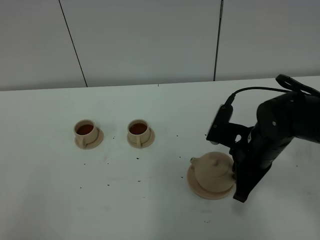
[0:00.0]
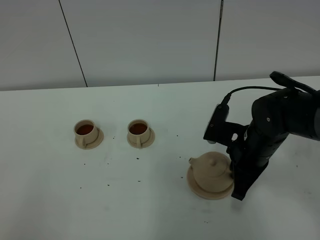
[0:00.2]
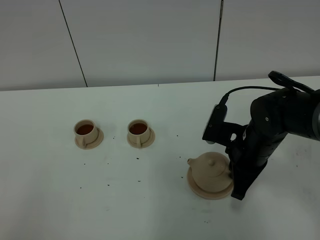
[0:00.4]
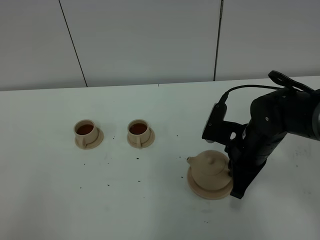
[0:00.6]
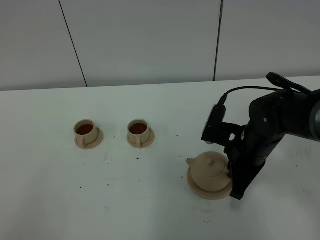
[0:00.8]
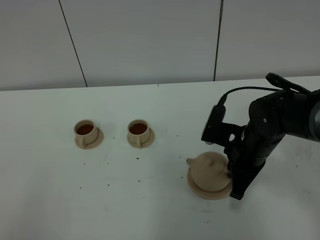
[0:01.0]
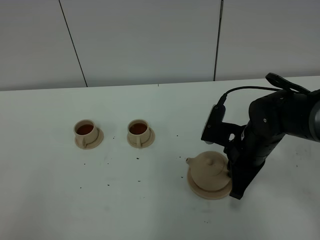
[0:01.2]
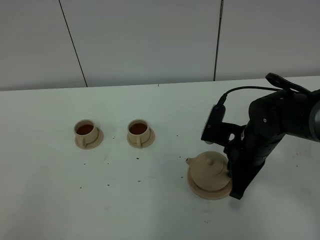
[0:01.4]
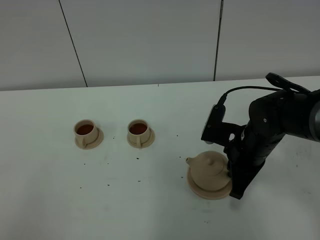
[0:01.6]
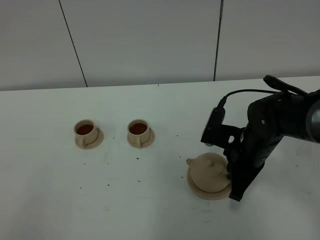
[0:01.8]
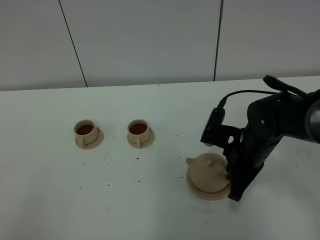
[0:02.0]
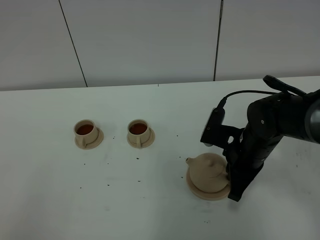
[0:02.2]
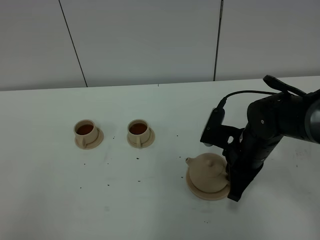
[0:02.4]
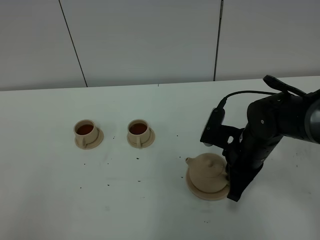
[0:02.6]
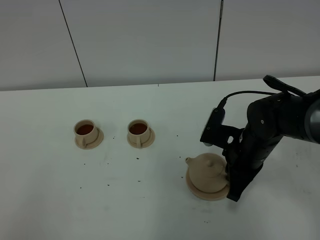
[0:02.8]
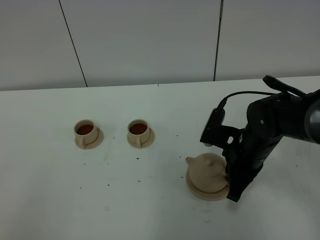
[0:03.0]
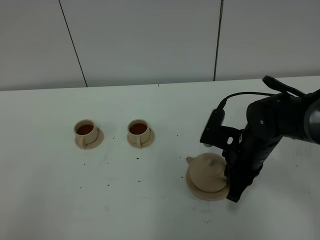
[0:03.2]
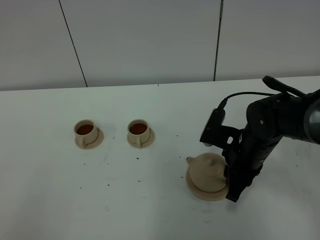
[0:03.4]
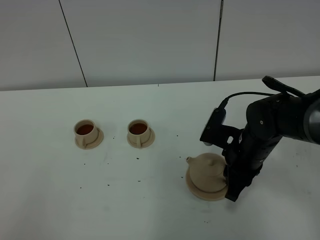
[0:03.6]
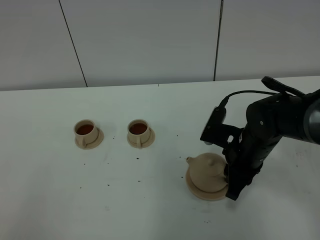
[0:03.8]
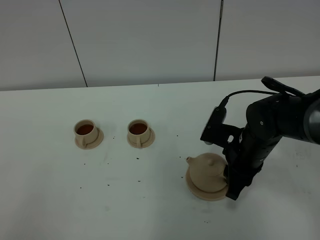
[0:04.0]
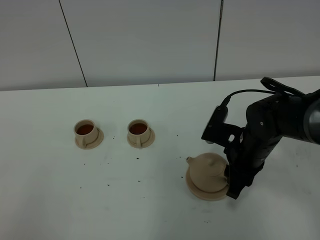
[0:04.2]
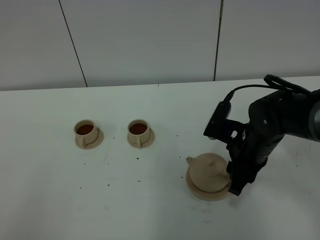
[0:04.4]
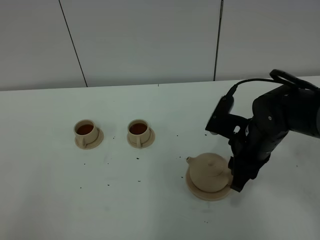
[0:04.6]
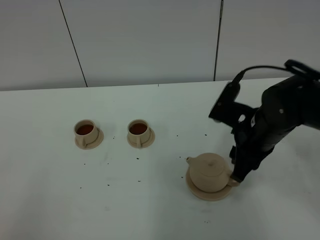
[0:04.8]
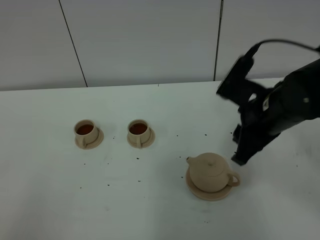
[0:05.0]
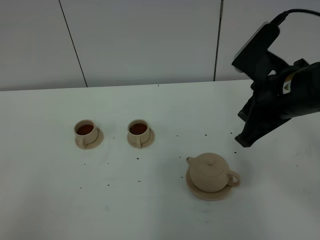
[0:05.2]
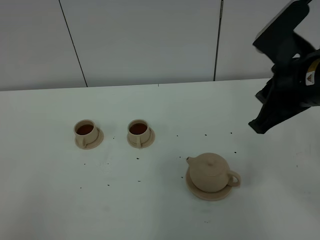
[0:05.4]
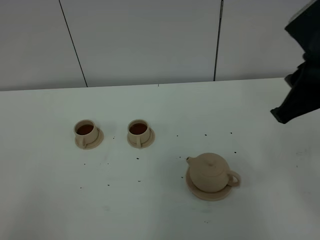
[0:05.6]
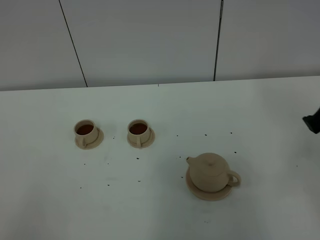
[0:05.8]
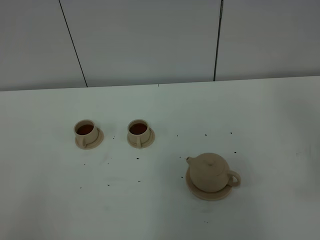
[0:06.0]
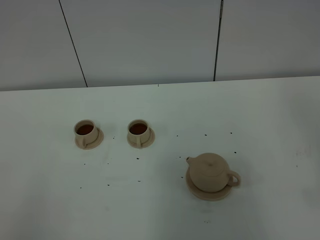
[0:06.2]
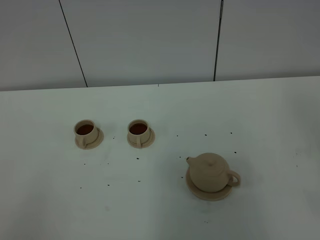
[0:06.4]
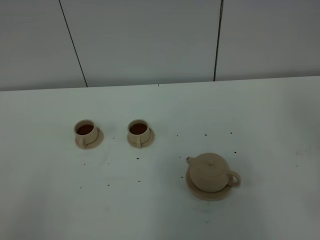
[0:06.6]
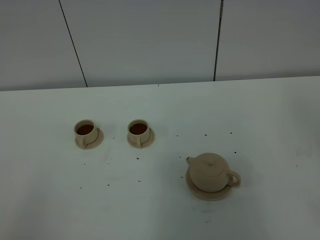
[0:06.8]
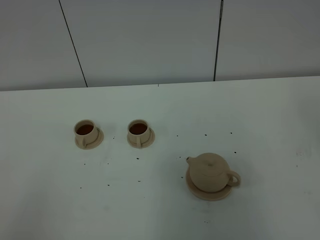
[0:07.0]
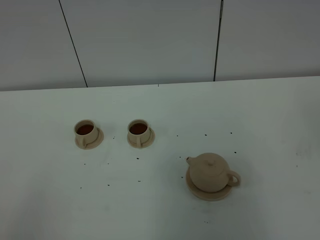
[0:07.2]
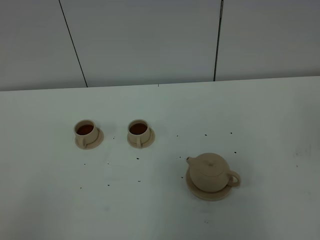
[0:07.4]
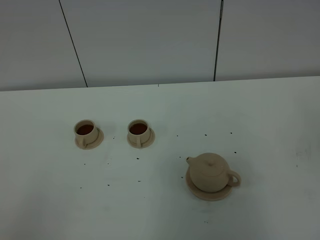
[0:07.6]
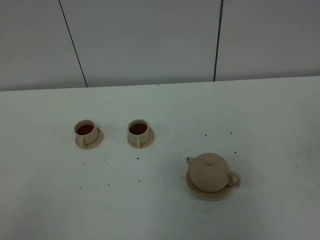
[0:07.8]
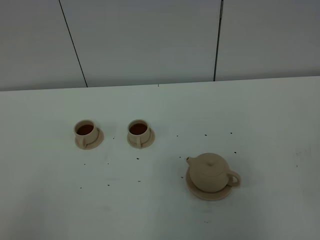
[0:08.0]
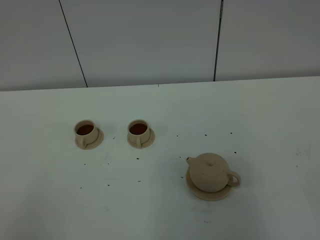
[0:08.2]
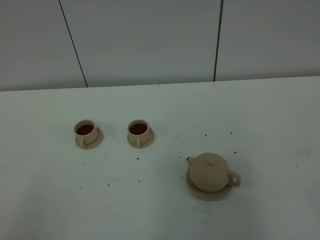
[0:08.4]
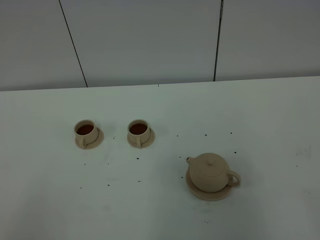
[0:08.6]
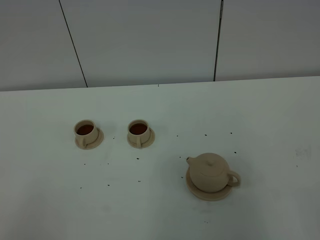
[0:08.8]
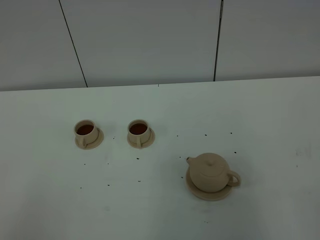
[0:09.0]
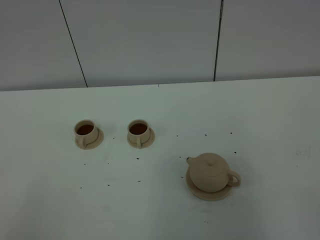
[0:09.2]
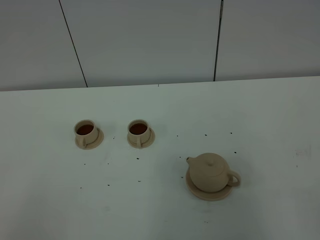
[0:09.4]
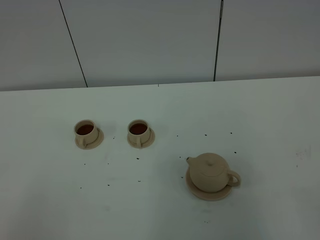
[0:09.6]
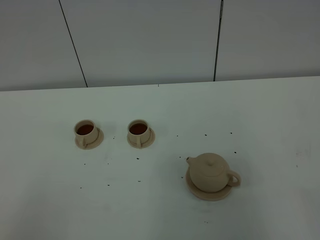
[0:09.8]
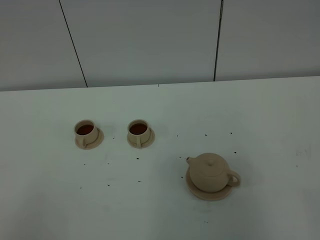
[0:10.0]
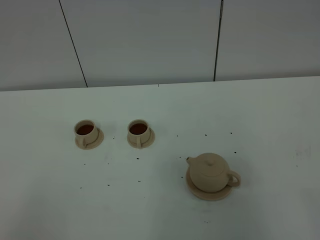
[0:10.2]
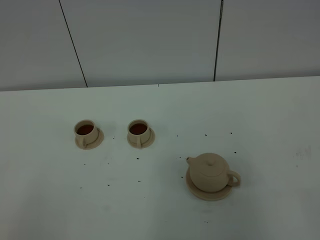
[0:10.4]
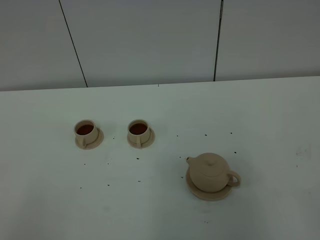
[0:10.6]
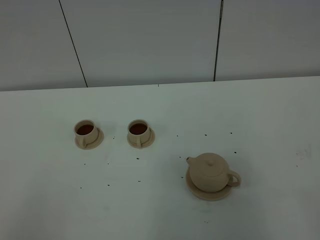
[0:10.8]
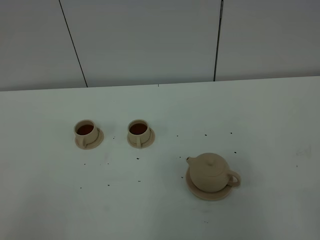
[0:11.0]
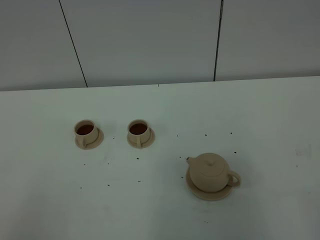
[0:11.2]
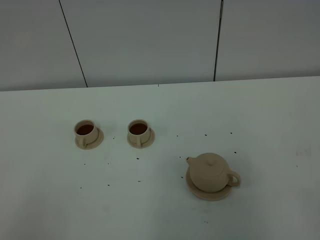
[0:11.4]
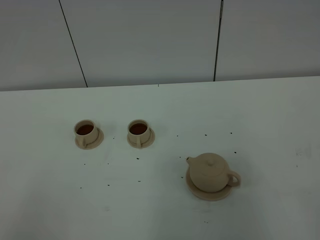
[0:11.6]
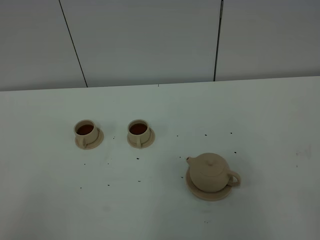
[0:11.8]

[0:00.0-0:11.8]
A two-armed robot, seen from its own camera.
Task of the whole recording: grasp the brown teapot and pour the tea into the two brown teacups one by one, put the brown teapot back in its original place.
0:00.0 to 0:01.4: The grippers make only small movements.
0:01.4 to 0:03.0: Neither gripper changes place.
0:03.0 to 0:04.4: The right gripper opens its fingers.
0:04.4 to 0:06.0: The right gripper shifts about 30 cm upward, backward and to the right, and closes.
0:10.4 to 0:11.8: The two grippers keep their place.

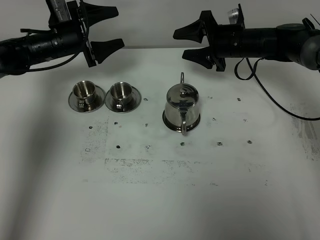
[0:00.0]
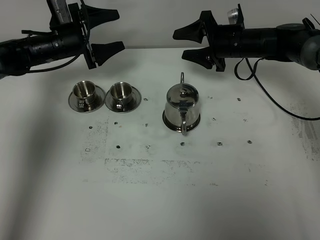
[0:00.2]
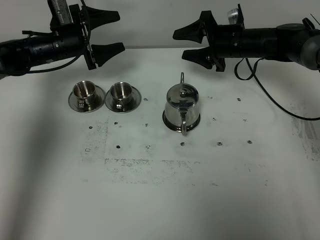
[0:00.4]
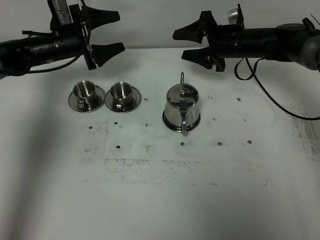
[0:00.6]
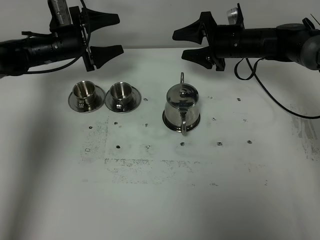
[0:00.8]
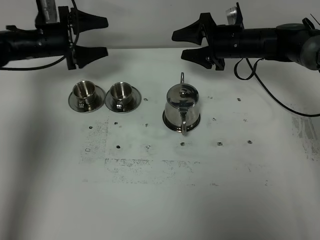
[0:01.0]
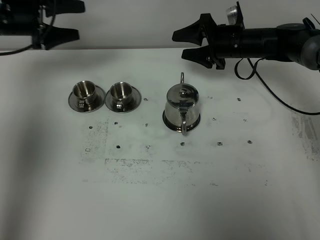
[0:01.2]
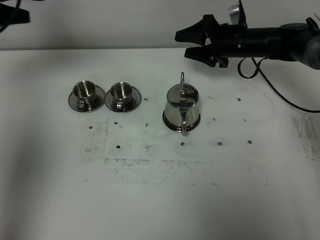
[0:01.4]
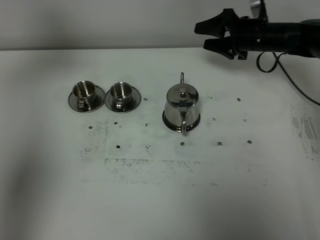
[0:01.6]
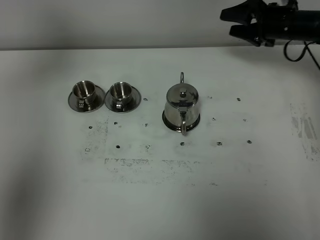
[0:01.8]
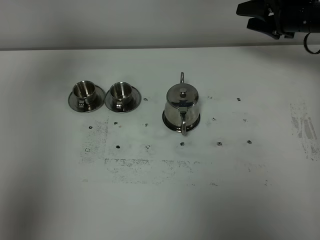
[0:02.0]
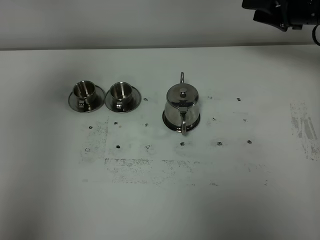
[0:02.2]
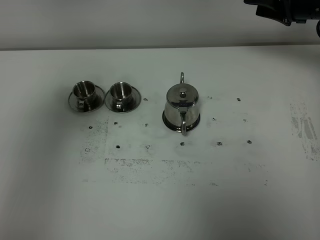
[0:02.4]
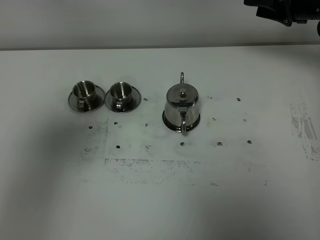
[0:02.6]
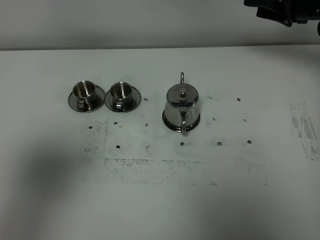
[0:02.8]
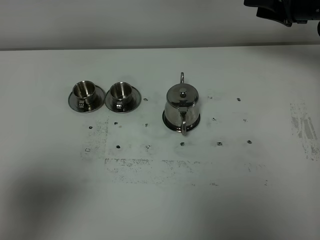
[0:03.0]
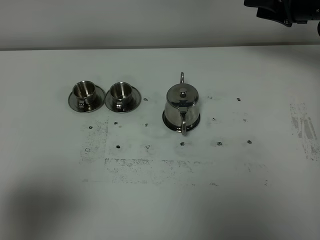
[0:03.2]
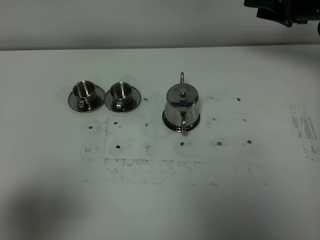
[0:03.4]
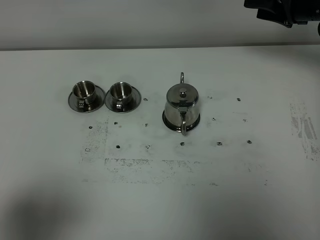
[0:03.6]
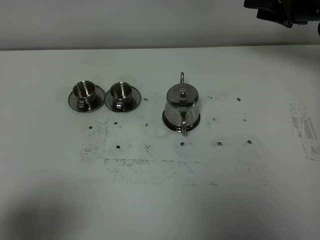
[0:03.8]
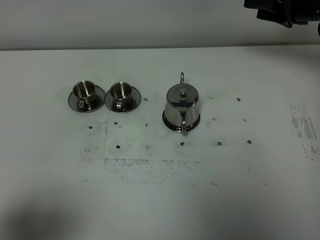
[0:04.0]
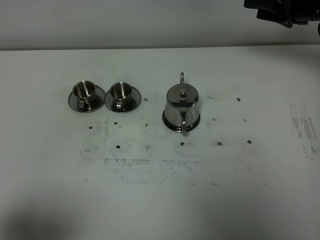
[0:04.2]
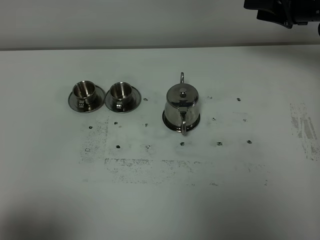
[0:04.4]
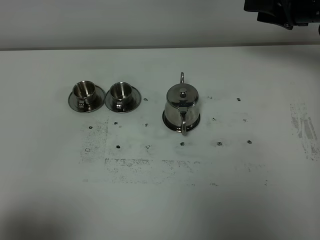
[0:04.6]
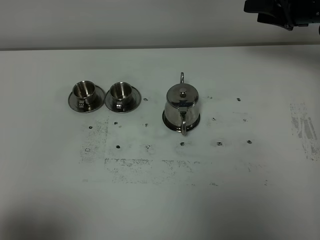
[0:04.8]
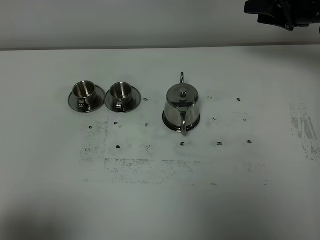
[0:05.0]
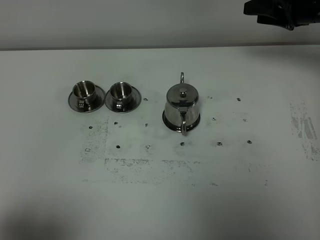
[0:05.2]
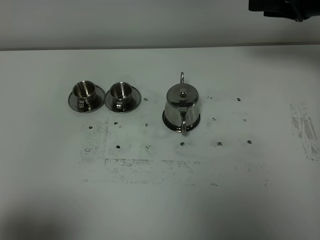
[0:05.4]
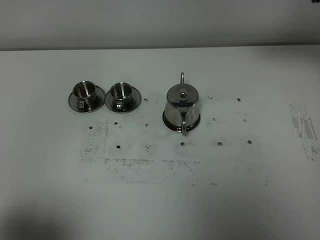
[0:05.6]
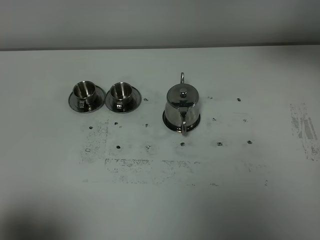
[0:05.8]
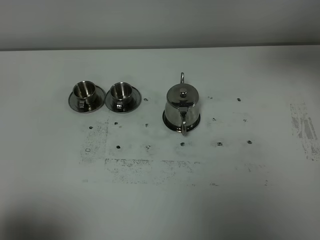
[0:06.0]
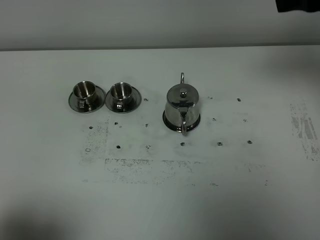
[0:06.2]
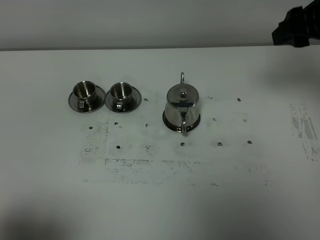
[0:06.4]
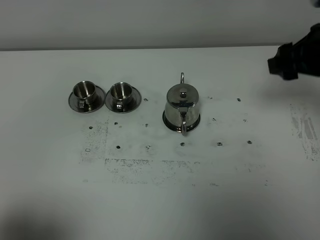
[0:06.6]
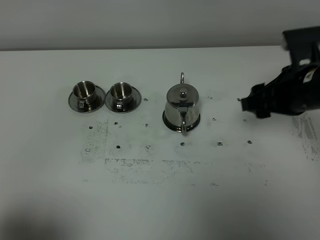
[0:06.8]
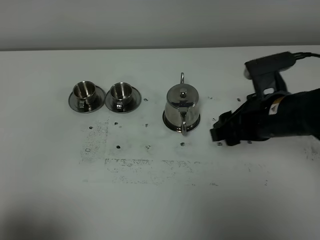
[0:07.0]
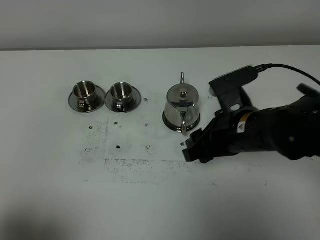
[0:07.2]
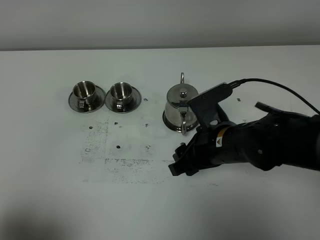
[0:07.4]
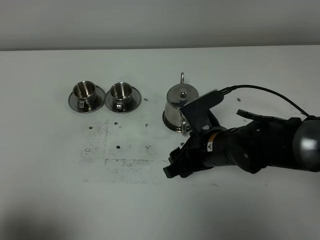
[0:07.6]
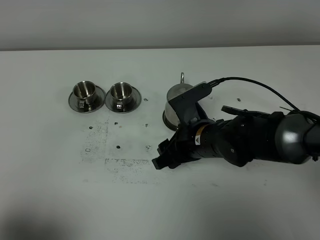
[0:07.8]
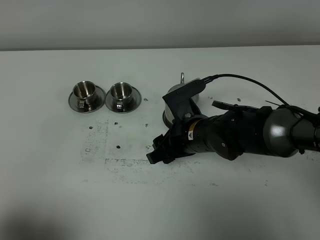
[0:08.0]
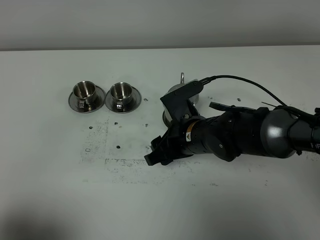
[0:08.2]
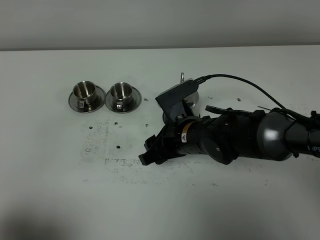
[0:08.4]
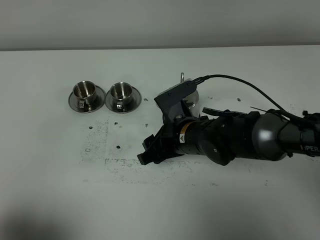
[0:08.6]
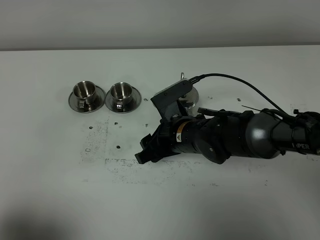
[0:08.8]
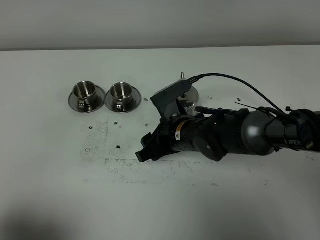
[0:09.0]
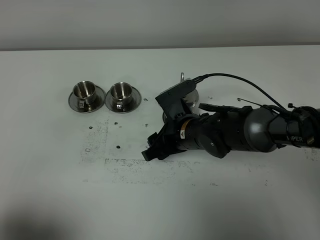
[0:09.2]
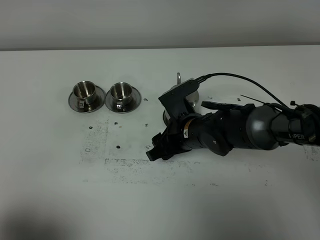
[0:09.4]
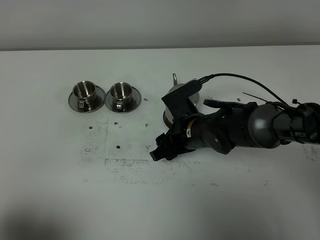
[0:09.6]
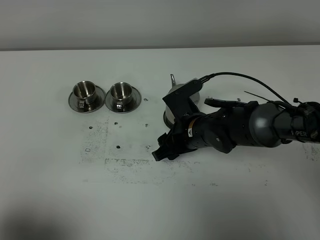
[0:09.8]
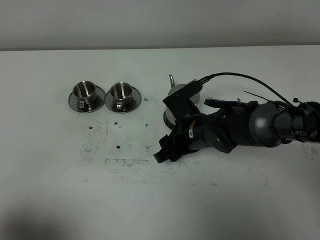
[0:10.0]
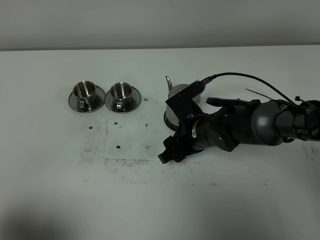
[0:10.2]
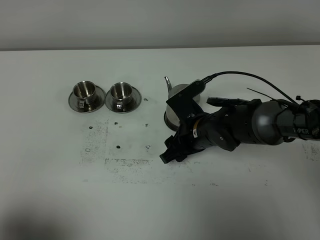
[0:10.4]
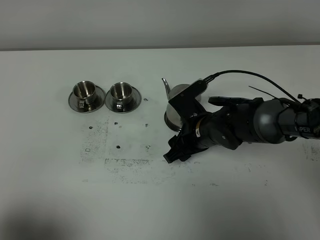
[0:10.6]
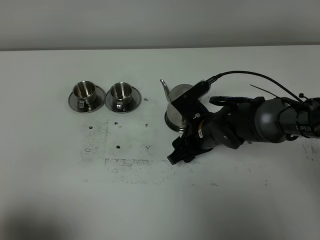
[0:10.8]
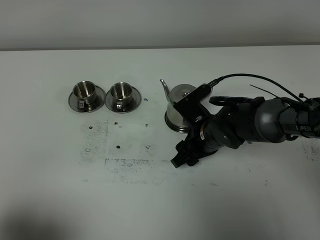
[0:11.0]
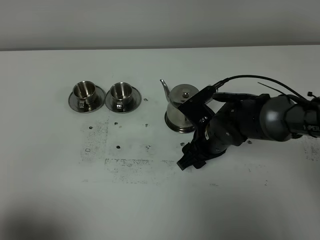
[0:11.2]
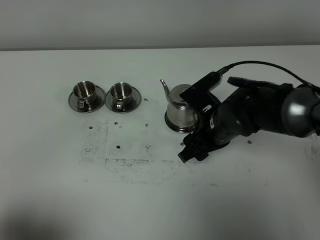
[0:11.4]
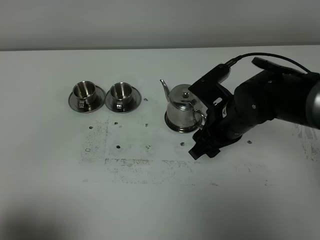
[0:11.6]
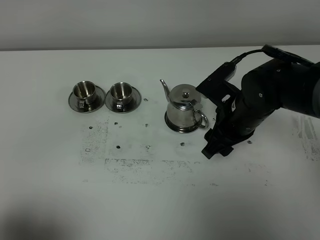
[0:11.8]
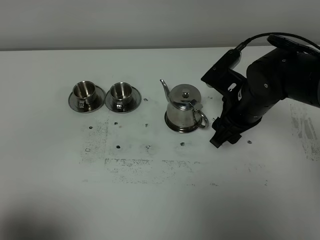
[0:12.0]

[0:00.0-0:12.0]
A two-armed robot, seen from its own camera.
Task of the whole recording: grasp the stainless steel teapot and pour the tea into the two stainless steel teacups one by one, put the stainless steel teapot back in its original place.
0:00.0 to 0:01.6: The left gripper heads upward, backward and to the left, covering roughly 30 cm; the right gripper shifts some 5 cm to the right.
0:01.6 to 0:03.0: The right gripper goes roughly 10 cm upward and to the right, while the left gripper is displaced backward by about 35 cm.
0:03.0 to 0:04.4: The left gripper travels downward by roughly 5 cm.
0:04.4 to 0:06.0: The right gripper goes roughly 25 cm upward and backward.
0:06.0 to 0:07.6: The right gripper is displaced downward and to the left by roughly 35 cm.
0:07.6 to 0:09.0: The right gripper ends up about 5 cm from where it was.
0:09.0 to 0:10.4: The grippers move only a little.
0:10.4 to 0:12.0: The right gripper shifts about 10 cm upward and to the right.
